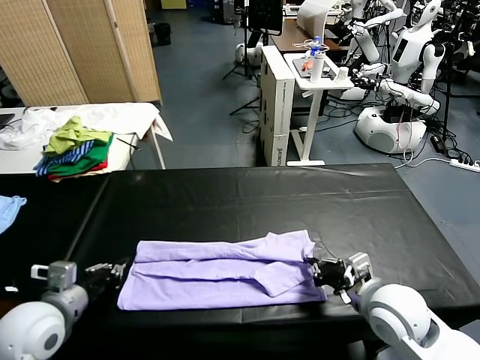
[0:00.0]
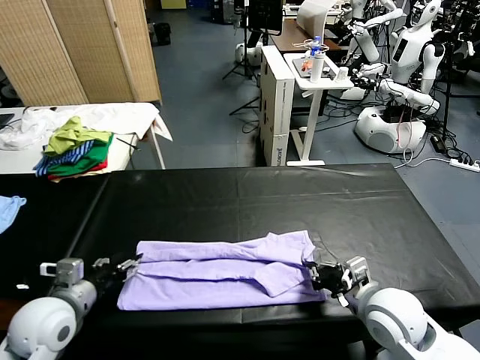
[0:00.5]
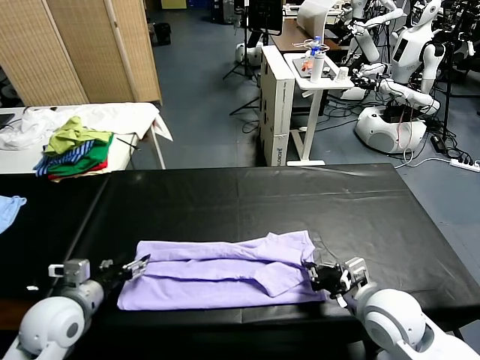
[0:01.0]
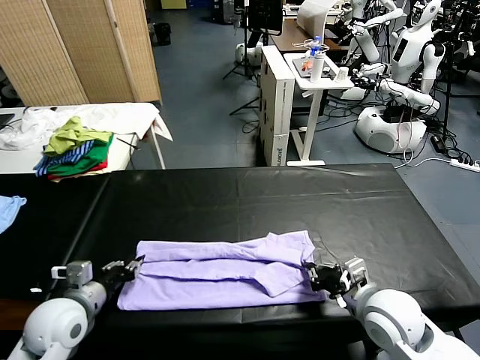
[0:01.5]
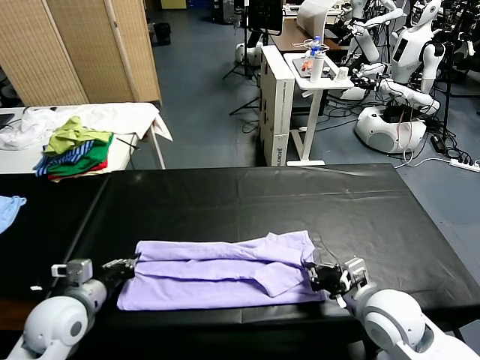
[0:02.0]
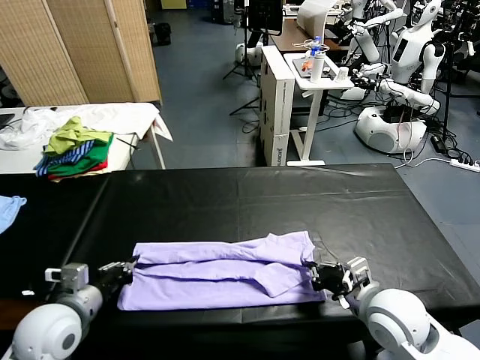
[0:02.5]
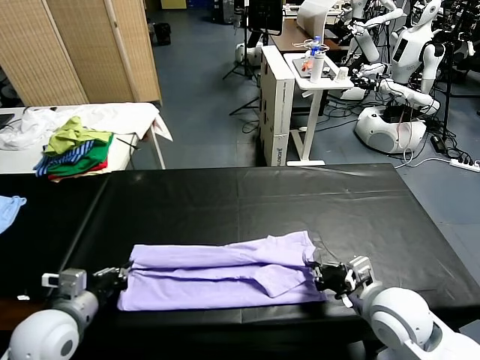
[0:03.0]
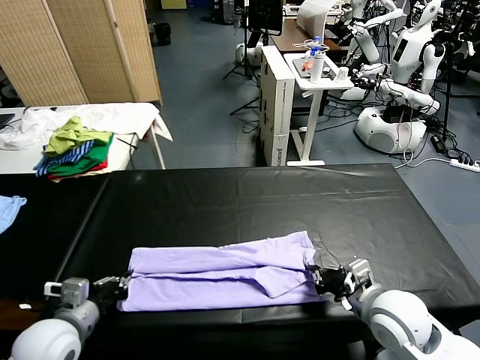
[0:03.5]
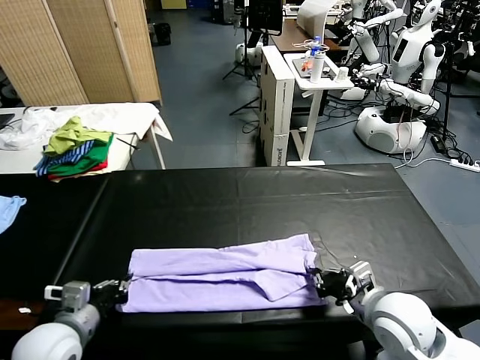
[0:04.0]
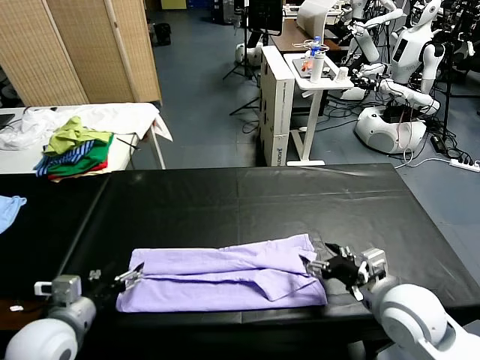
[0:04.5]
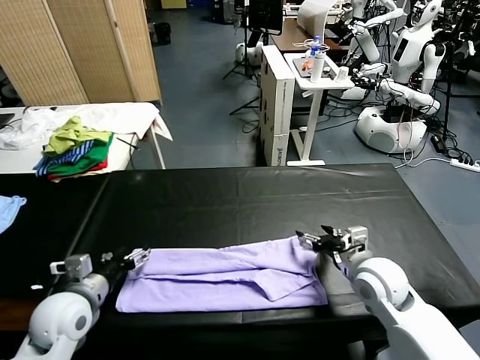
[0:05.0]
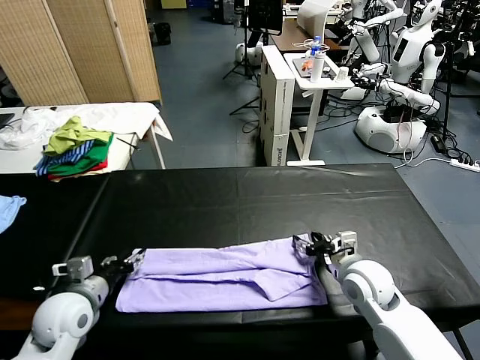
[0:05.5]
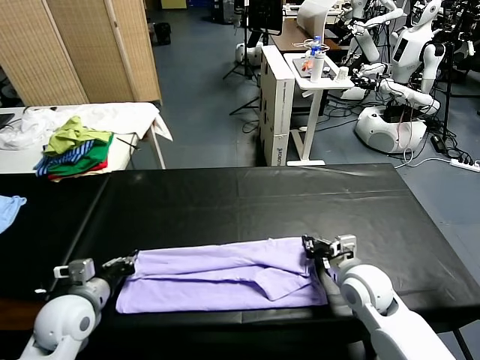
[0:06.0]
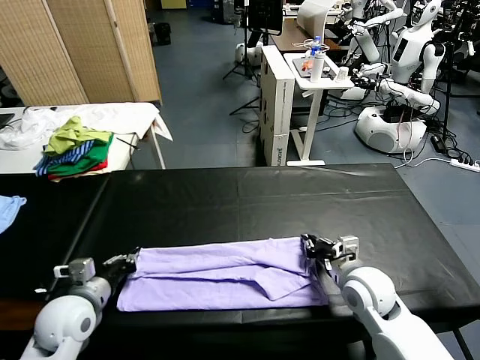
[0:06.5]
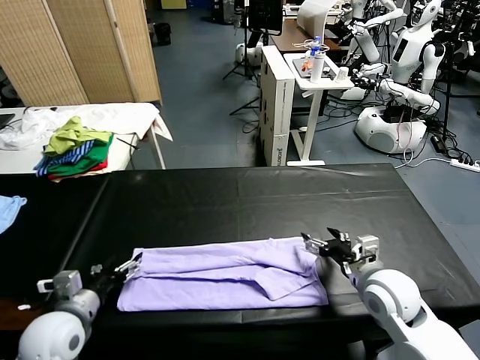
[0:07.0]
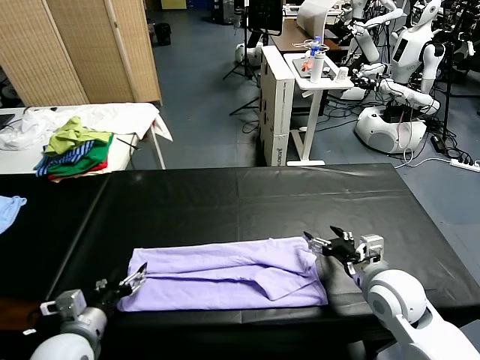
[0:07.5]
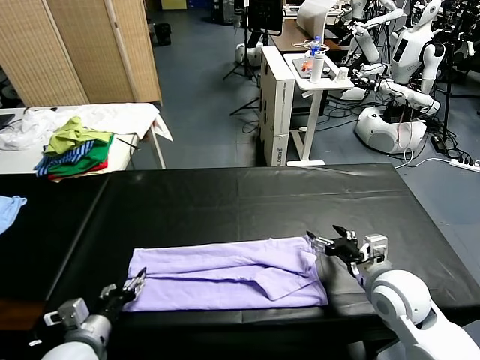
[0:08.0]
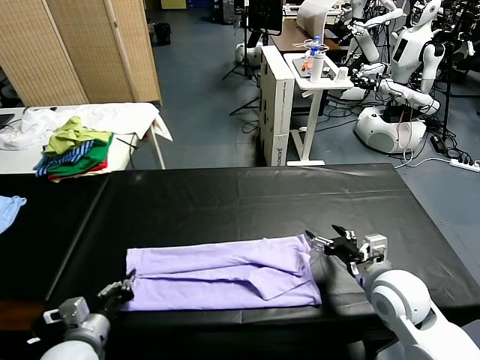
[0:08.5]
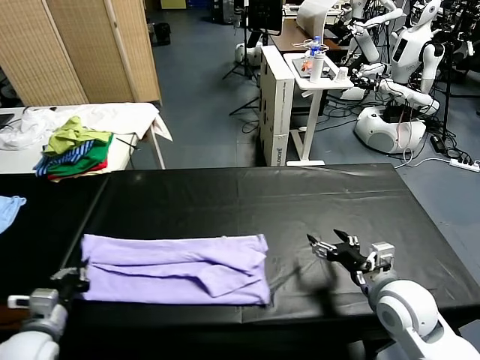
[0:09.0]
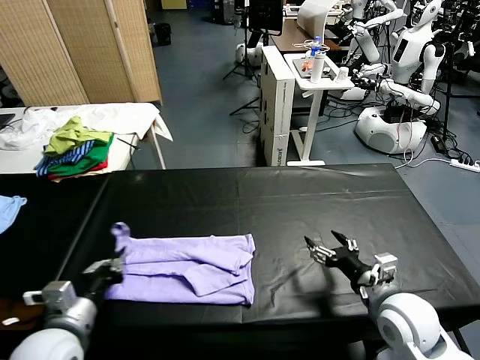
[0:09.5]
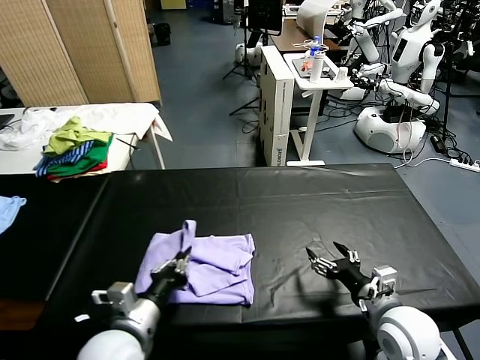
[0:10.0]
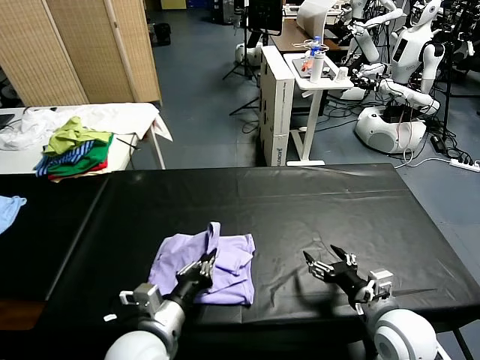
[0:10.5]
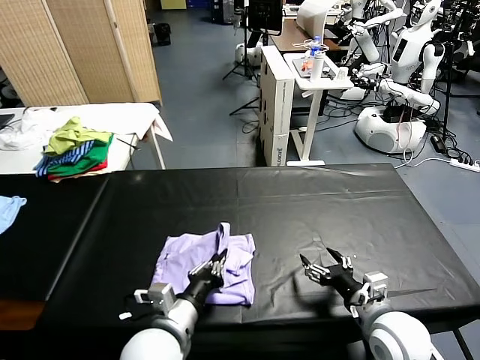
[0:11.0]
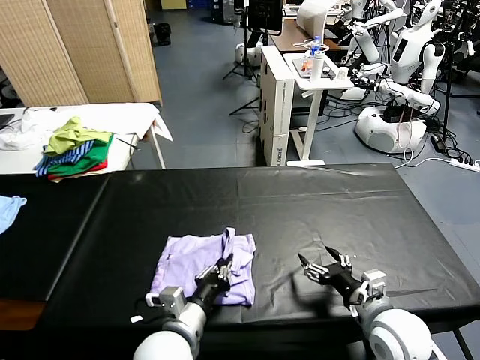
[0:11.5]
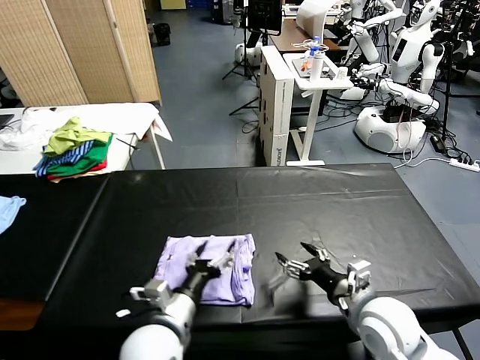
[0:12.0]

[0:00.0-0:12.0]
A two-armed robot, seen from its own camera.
Task of the whole recording: fold and organize the clothes.
Step, 0:00.0 to 0:04.0: use both grippers to drag the upper edge of the fabric backward and fold it over the lower edge.
Step, 0:04.5 to 0:08.0: use the left gripper to clamp the left edge of the fabric.
Step, 0:08.5 to 0:11.5: use the left gripper to drag the left edge of the fabric to the left and folds it over the right edge.
0:00.0 to 0:02.0: The left gripper opens, then closes once more.
0:02.0 to 0:04.0: The left gripper shifts by some 5 cm.
0:04.0 to 0:06.0: The left gripper is displaced forward by approximately 5 cm, and opens, then closes again, while the right gripper shifts approximately 10 cm forward and downward, and opens and closes again.
0:06.0 to 0:08.0: The right gripper ends up about 5 cm from where it was, and opens its fingers, while the left gripper heads backward, covering about 10 cm, and opens.
0:08.0 to 0:10.0: The left gripper shifts about 10 cm to the right and upward, and closes, while the right gripper goes about 5 cm backward.
0:10.0 to 0:12.0: The left gripper moves to the right, about 5 cm, and opens up.

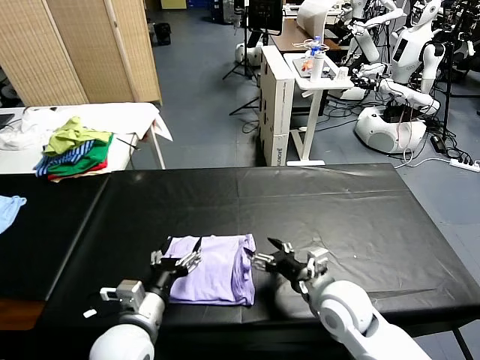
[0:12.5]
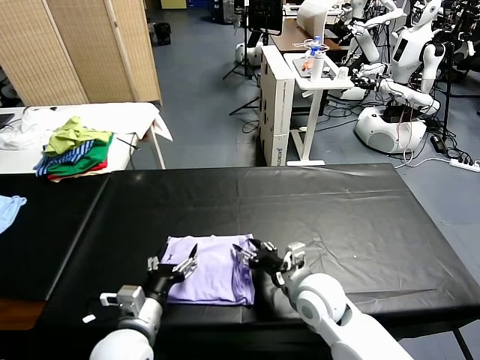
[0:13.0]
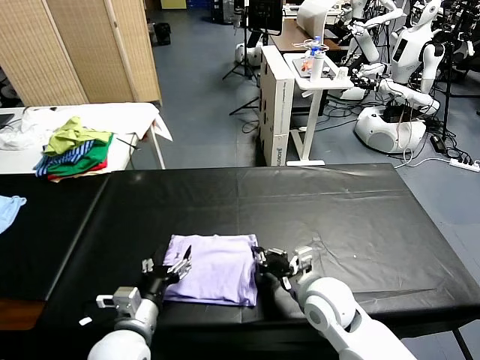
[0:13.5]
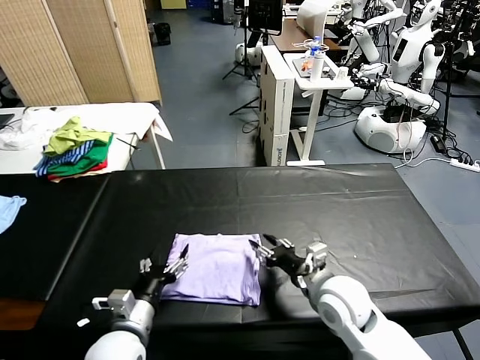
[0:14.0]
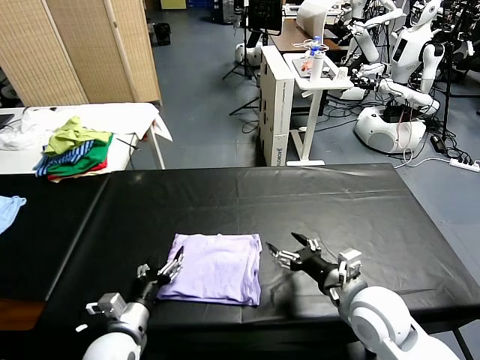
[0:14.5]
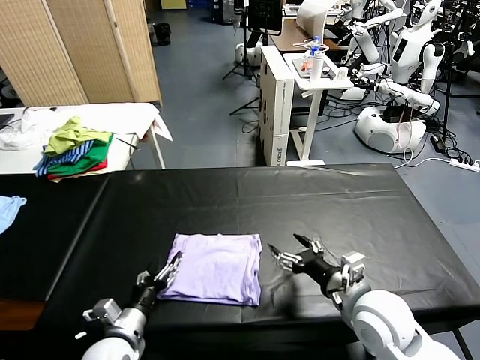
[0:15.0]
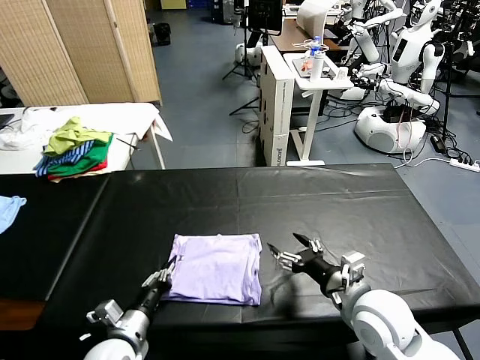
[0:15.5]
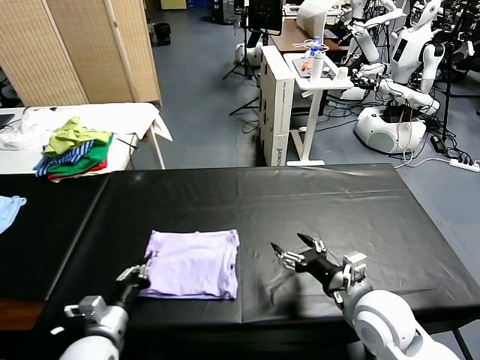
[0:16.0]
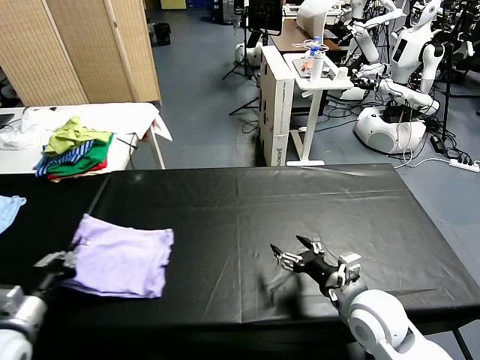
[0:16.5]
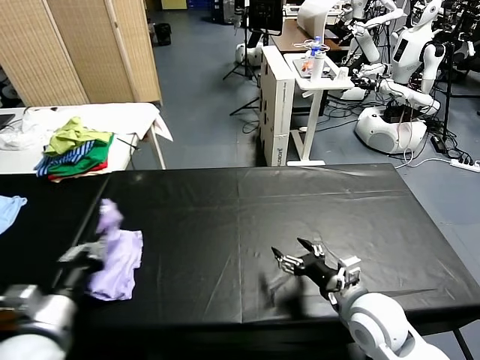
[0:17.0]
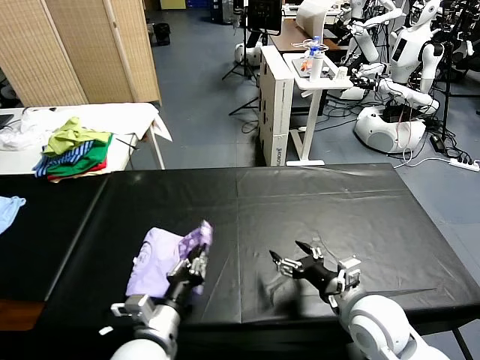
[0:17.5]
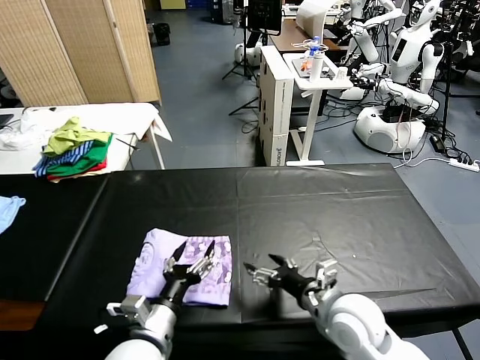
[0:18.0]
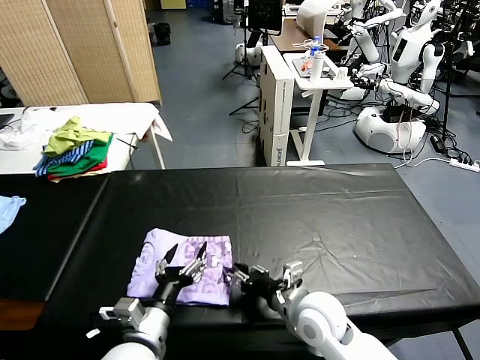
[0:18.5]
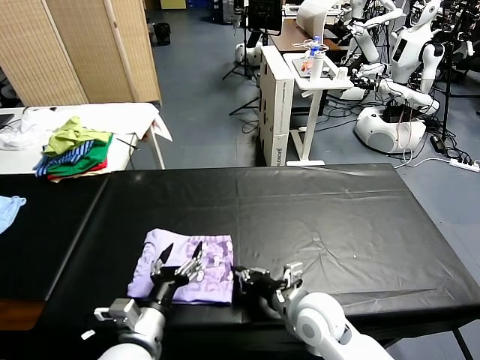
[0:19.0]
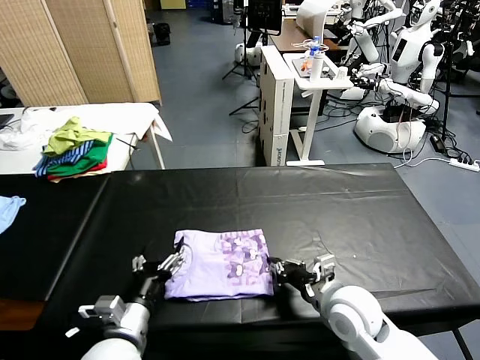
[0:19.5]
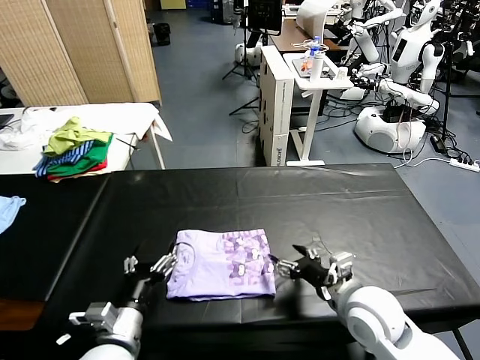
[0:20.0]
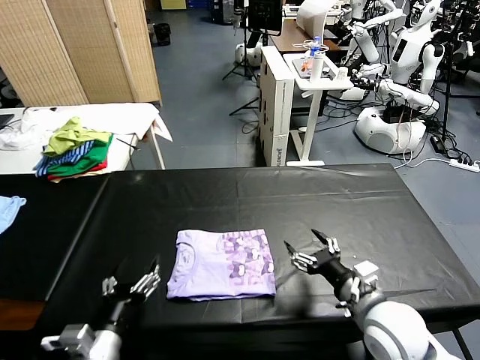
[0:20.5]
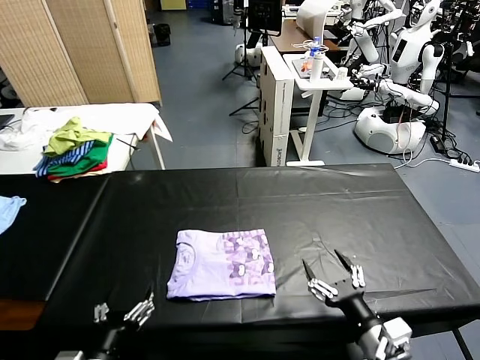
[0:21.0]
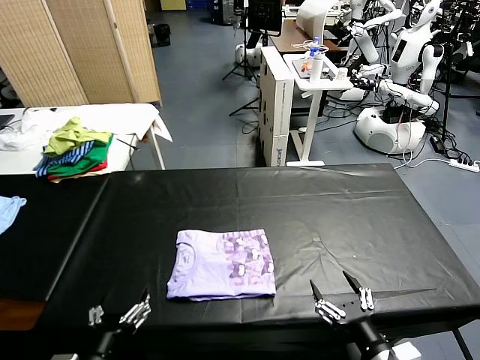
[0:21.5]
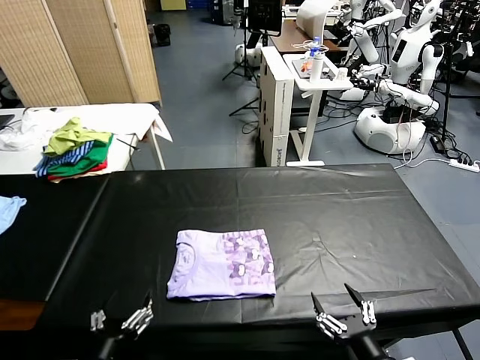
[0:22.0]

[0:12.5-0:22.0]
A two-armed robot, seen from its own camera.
Task of the whole recording: fold and organize the clothes.
Step, 0:12.5 to 0:17.5: Flip the folded clothes over with left gripper.
Step, 0:18.0 to 0:19.5: Drag the clothes to the center of the table.
0:12.5 to 0:14.5: The right gripper moves about 5 cm, and closes, then opens again; the left gripper travels downward by approximately 5 cm.
0:14.5 to 0:16.5: The left gripper goes some 15 cm to the left and upward, and closes up.
0:16.5 to 0:18.0: The left gripper moves to the right, about 25 cm, and opens its fingers.
0:18.0 to 0:20.0: The right gripper moves approximately 5 cm to the left and comes back, and closes, then reopens. Meanwhile the left gripper goes approximately 5 cm to the left.
0:20.0 to 0:22.0: The right gripper travels backward by approximately 20 cm; the left gripper heads backward, covering approximately 10 cm.

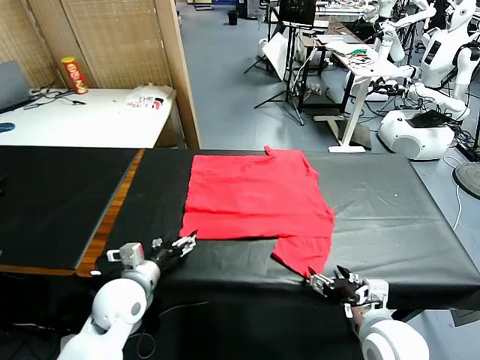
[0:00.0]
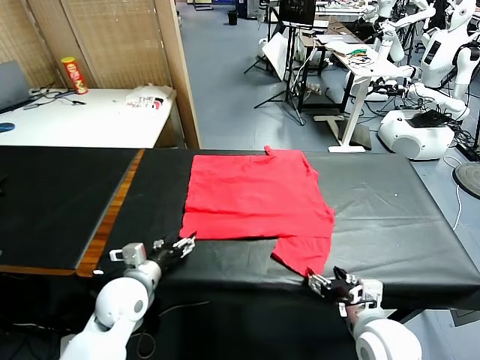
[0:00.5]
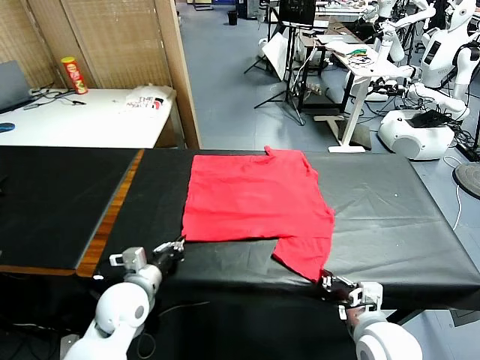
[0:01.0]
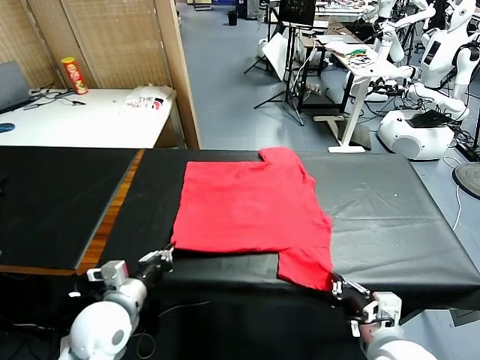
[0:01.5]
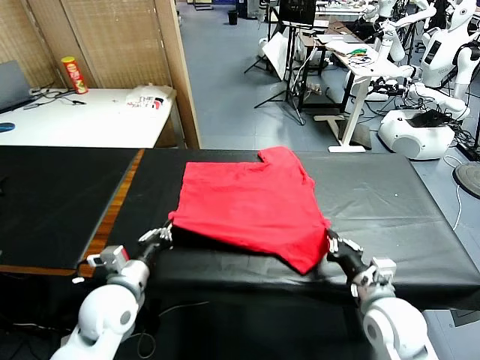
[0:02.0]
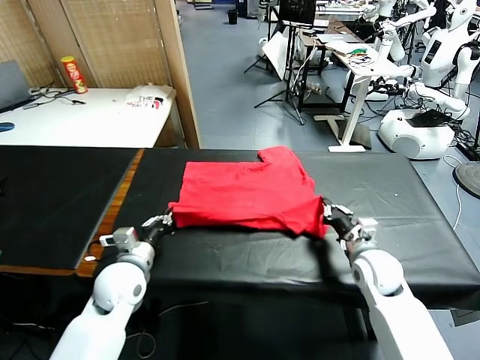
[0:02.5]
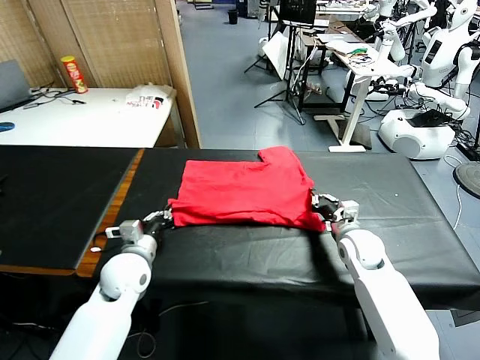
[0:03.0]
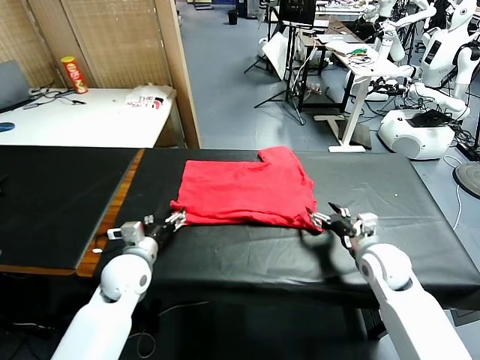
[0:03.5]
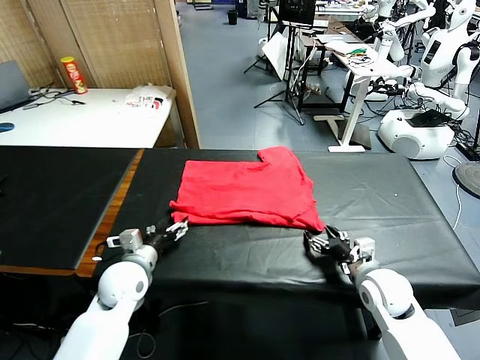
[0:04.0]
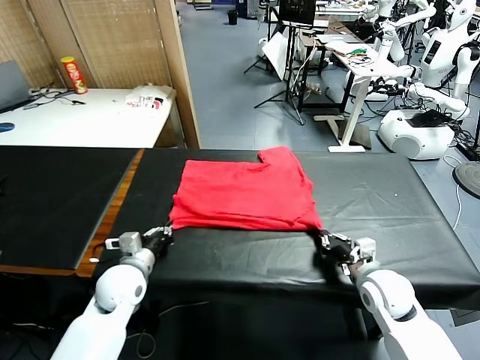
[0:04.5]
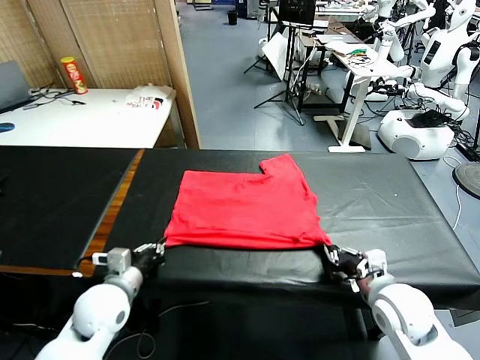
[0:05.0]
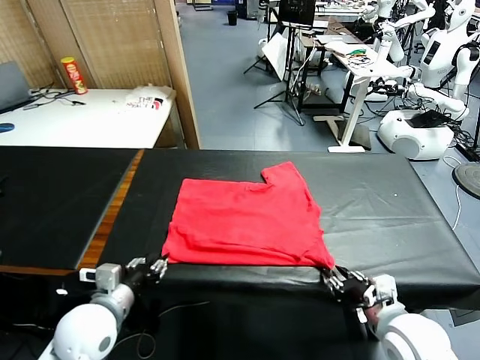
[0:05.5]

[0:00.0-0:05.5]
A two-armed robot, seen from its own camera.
Task of the whole recording: fold and organize the clothes.
Step, 0:00.0 to 0:01.0: use both grippers simultaneously to clamp the lower edge of the clothing fabric.
Step, 0:01.5 to 0:03.0: use both grippers to drag the lower edge of the fabric forward and fold it over the upper edge.
Step, 0:03.5 to 0:05.5: Drag the clothes downward with both gripper.
0:02.0 to 0:03.5: The left gripper moves approximately 5 cm, and opens its fingers, while the right gripper goes forward and returns, about 10 cm each way, and opens.
0:03.5 to 0:05.5: The two grippers go roughly 15 cm backward and upward. The right gripper closes, then opens again, while the left gripper closes, then reopens.
